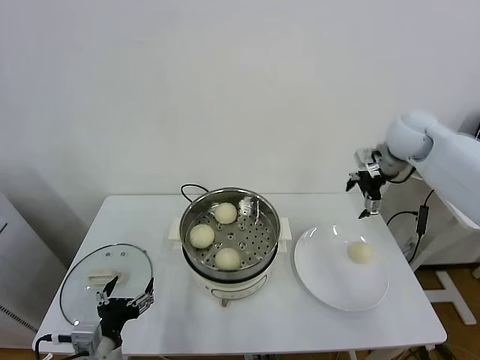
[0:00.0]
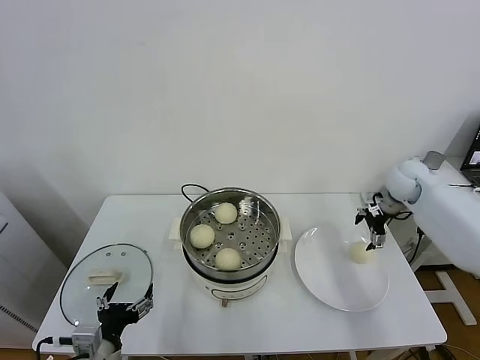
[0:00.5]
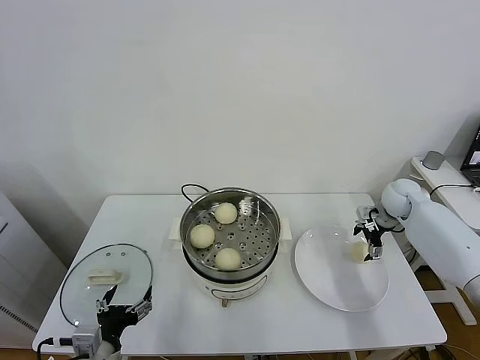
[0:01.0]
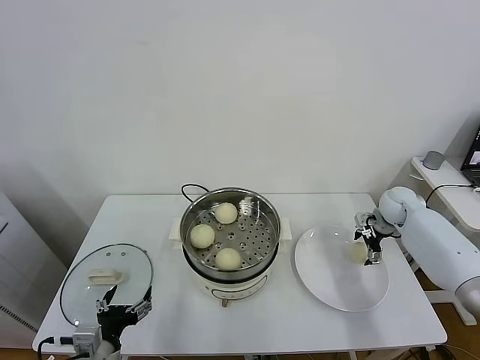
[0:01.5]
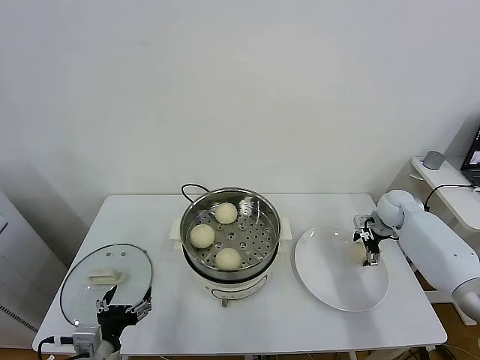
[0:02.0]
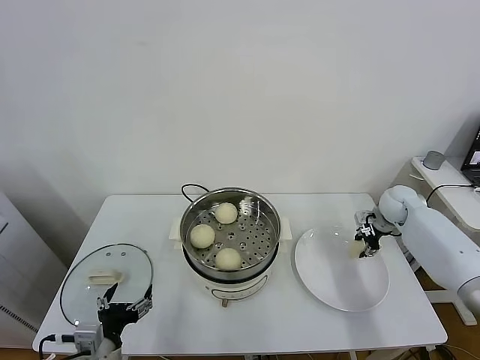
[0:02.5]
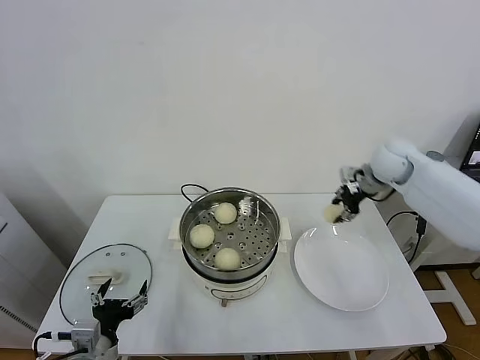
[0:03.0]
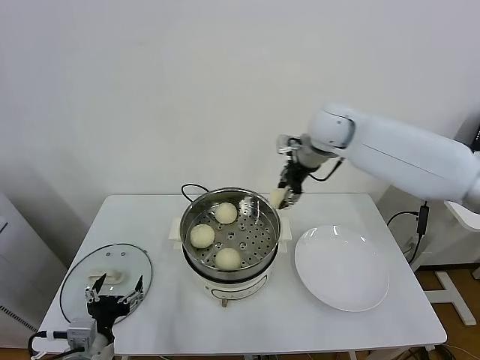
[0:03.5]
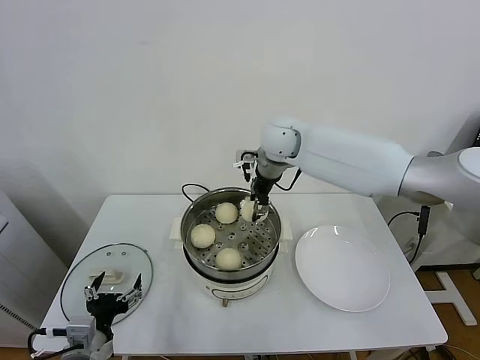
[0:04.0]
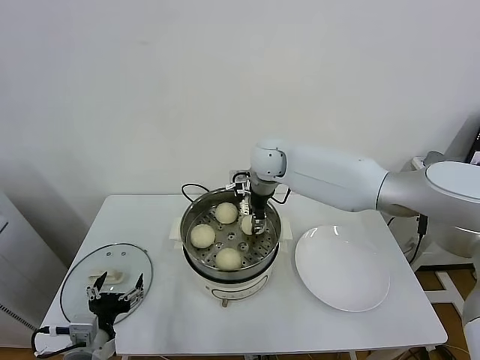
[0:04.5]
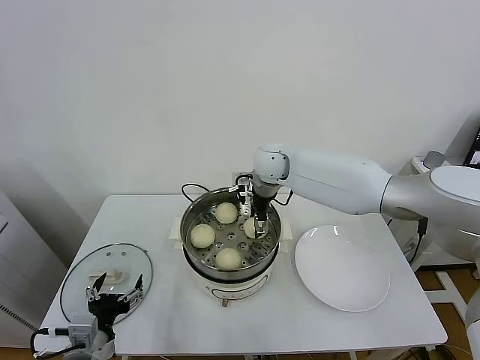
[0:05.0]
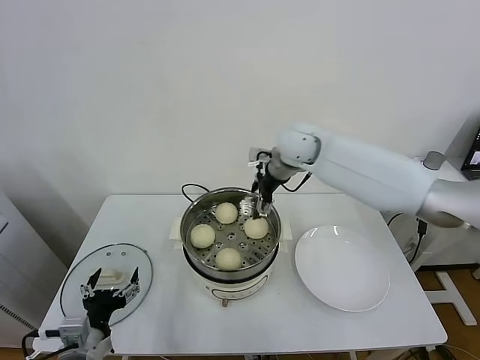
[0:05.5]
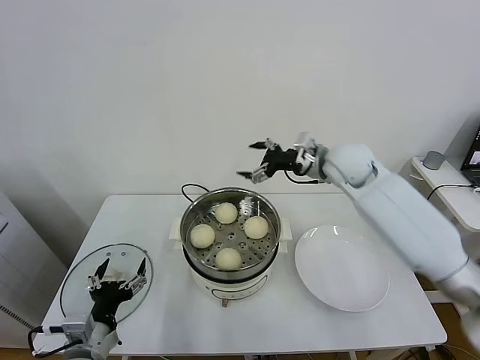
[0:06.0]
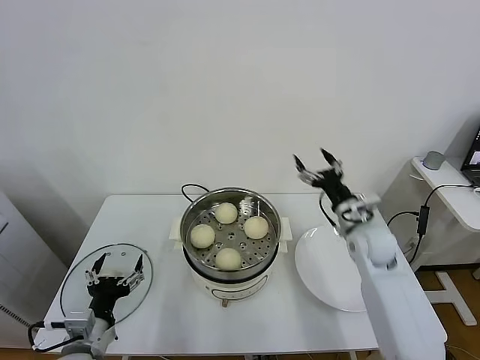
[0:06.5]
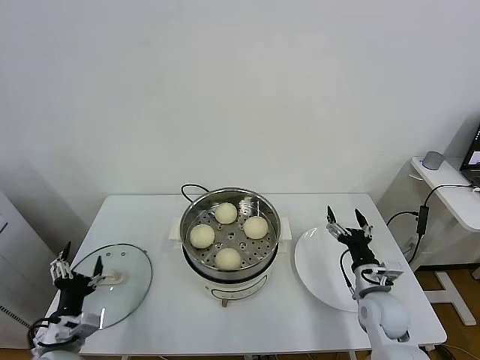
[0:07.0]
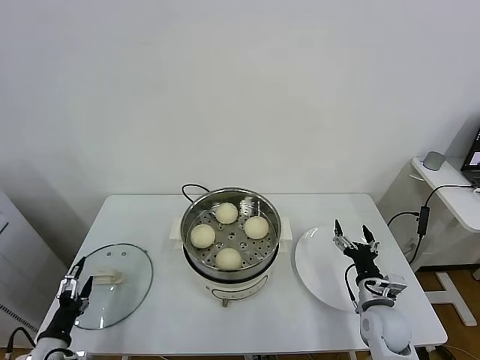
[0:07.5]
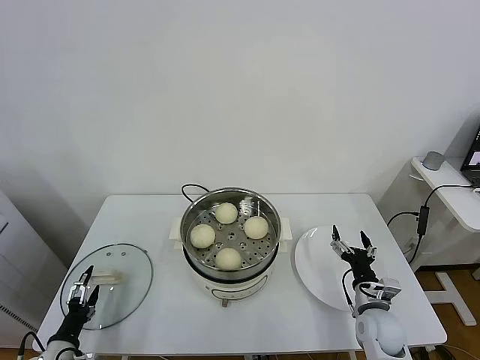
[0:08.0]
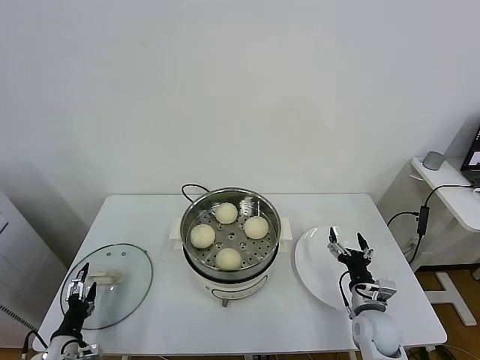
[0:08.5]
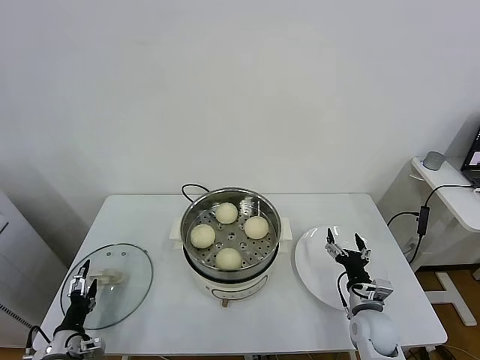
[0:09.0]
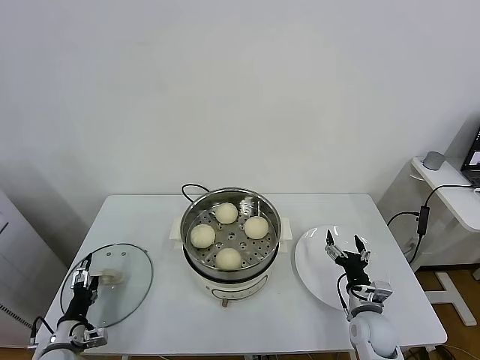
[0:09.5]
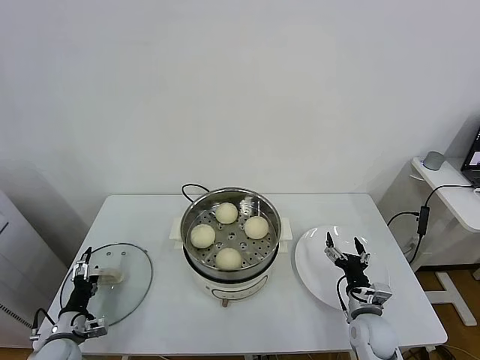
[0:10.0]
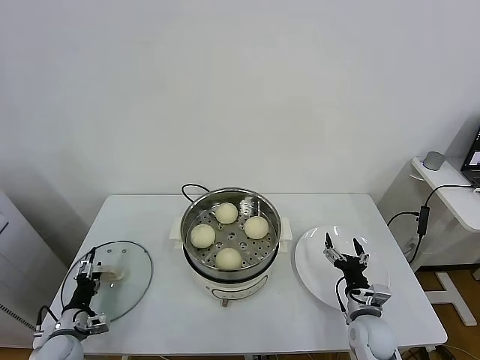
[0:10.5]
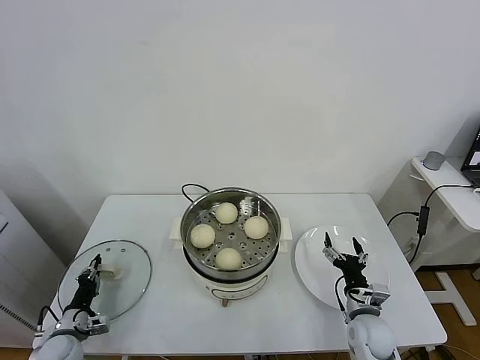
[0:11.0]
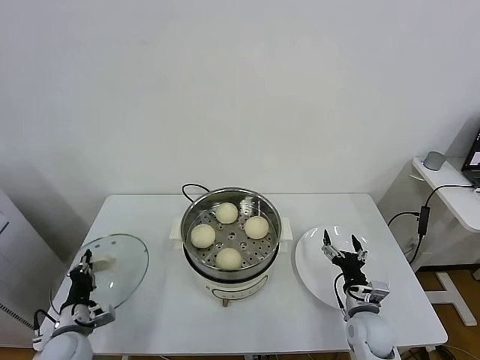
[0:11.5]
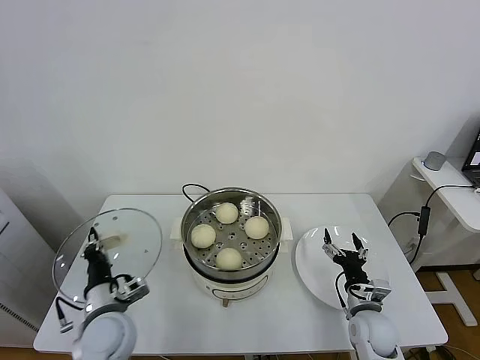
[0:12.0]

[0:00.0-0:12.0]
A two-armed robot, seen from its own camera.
Task of the whole recording: take steamed baozi put them in steamer.
Step, 0:00.0 to 0:02.0: Grasp the baozi in the plate with right gripper.
Step, 0:02.5 to 0:05.0: Place the baozi on the steamer with right gripper.
Step, 0:05.5 to 0:11.0: Grasp the pot lid with left gripper.
0:00.0 to 0:02.0: The right gripper goes about 20 cm downward.
0:02.0 to 0:04.0: The right gripper is displaced to the left and upward by about 40 cm, and closes its fingers.
0:04.0 to 0:06.0: The right gripper heads to the right, covering about 15 cm, and opens up.
0:06.0 to 0:08.0: The right gripper goes about 40 cm downward and backward, while the left gripper is displaced downward and to the left by about 20 cm.
0:08.0 to 0:10.0: The left gripper heads forward, covering approximately 5 cm.
0:10.0 to 0:12.0: The left gripper goes some 20 cm to the right and upward, and closes.

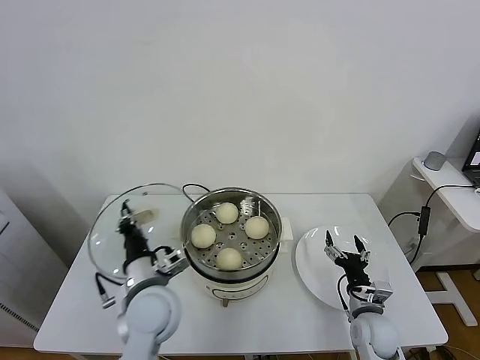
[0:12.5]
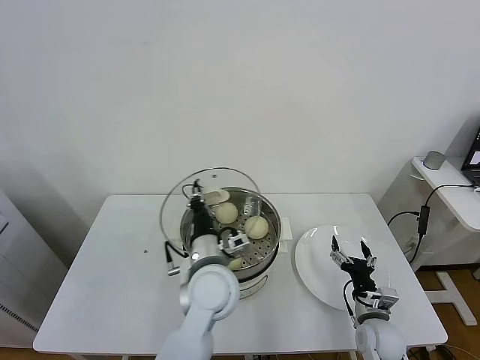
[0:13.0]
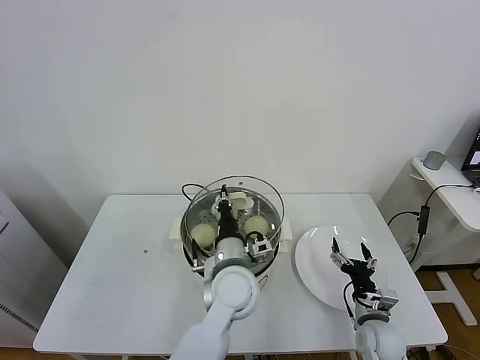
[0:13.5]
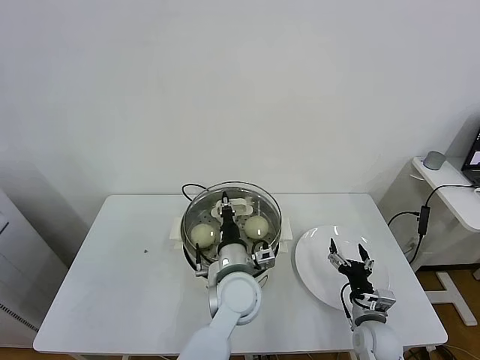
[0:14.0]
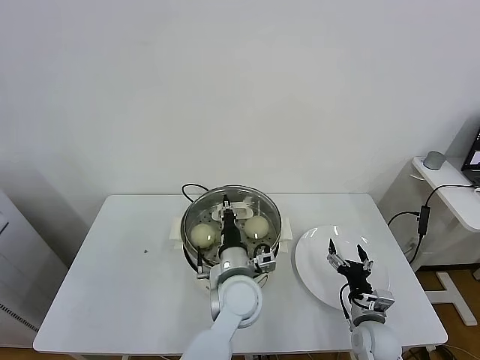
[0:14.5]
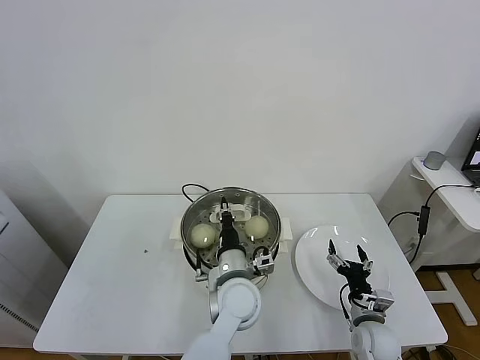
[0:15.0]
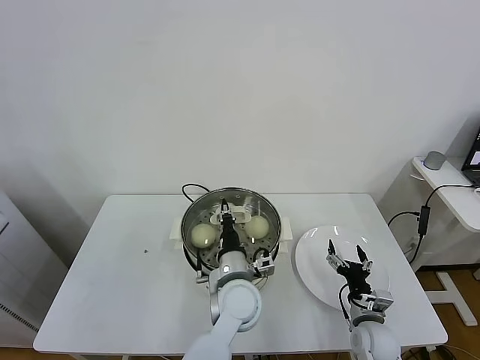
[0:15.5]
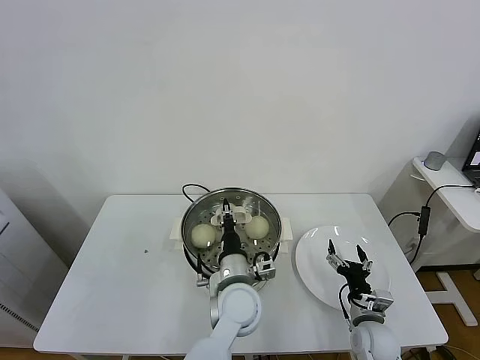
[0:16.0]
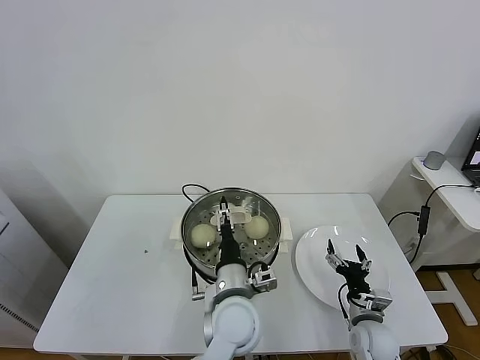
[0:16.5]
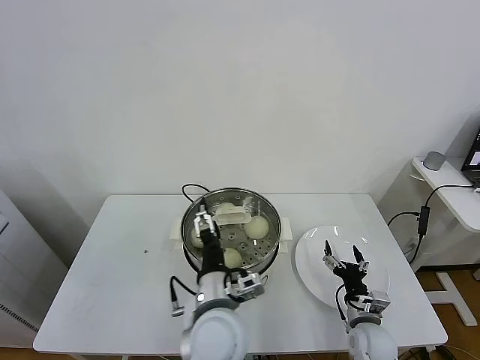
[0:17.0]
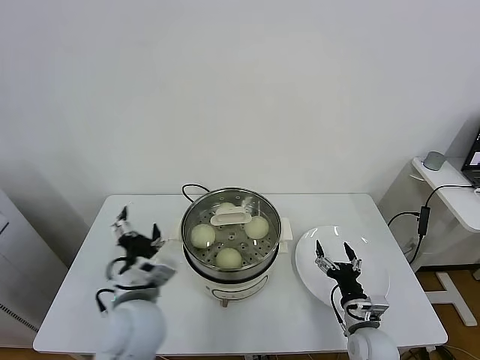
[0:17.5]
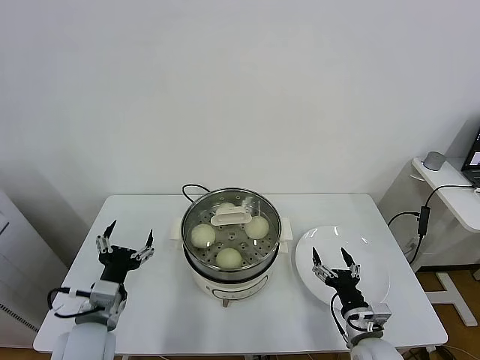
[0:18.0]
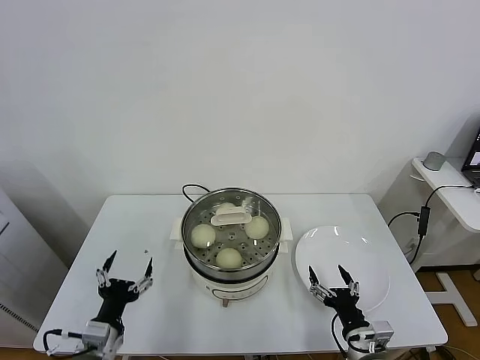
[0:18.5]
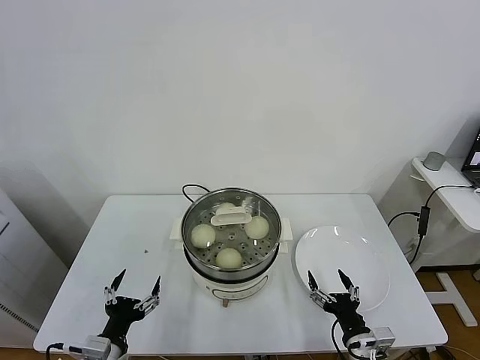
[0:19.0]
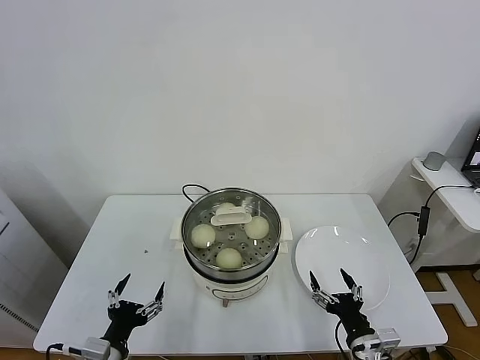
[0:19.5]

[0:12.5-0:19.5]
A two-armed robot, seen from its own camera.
Task of the whole recording: take steamed baozi put them in steamer.
Step, 0:12.5 to 0:16.0: Place the pot lid on the steamer with left gripper.
0:12.5 to 0:14.5: The left gripper heads to the right, covering about 15 cm.
0:14.5 to 0:16.0: There are only small adjustments of the grippers.
0:16.0 to 0:17.5: The left gripper shifts some 20 cm to the left, upward and backward, and opens up.
0:17.5 to 0:19.5: The left gripper heads to the left, downward and backward, covering some 20 cm; the right gripper is displaced backward by some 10 cm.
